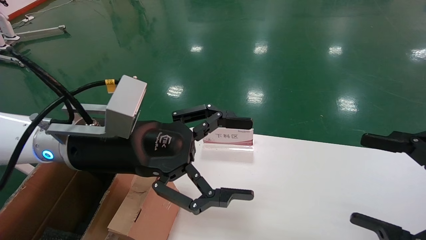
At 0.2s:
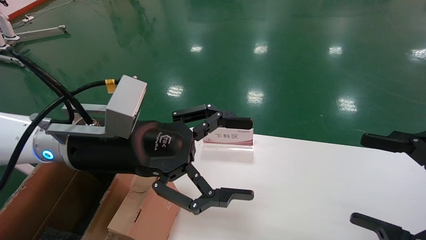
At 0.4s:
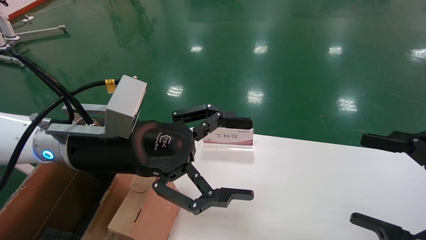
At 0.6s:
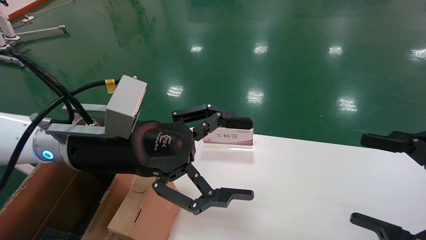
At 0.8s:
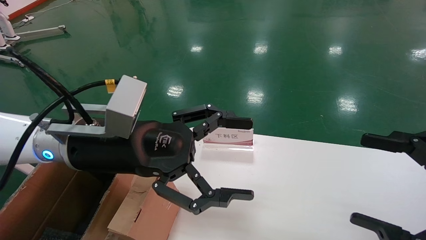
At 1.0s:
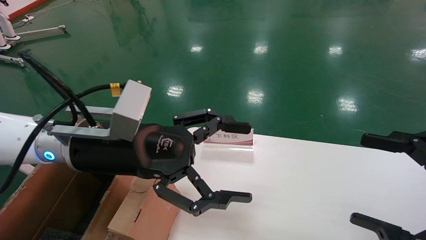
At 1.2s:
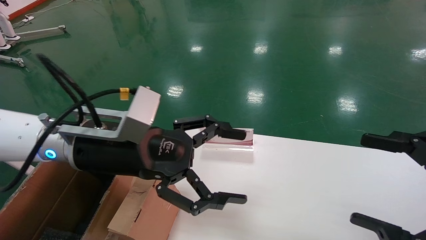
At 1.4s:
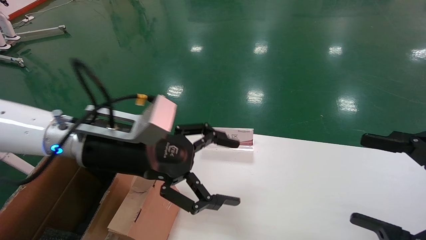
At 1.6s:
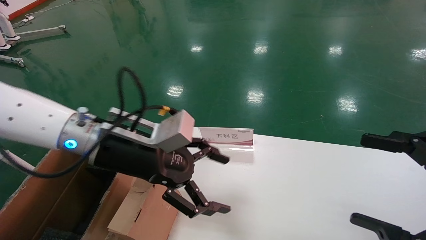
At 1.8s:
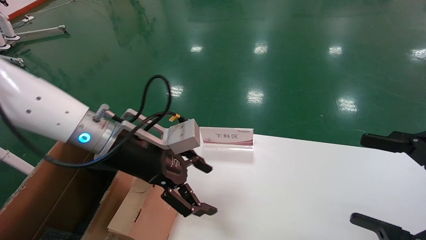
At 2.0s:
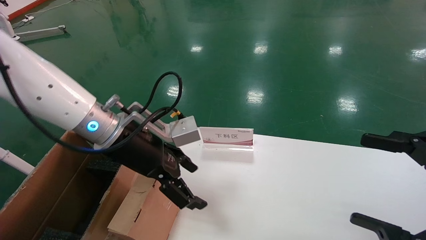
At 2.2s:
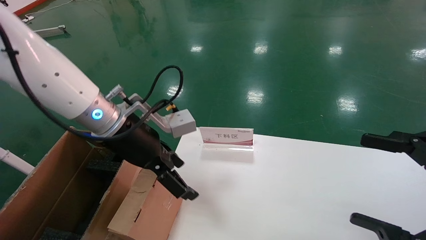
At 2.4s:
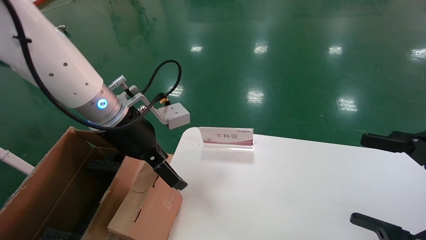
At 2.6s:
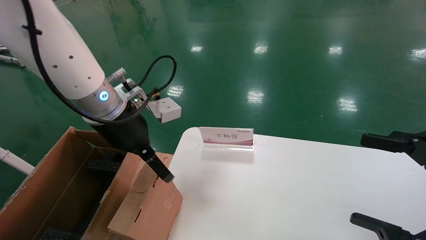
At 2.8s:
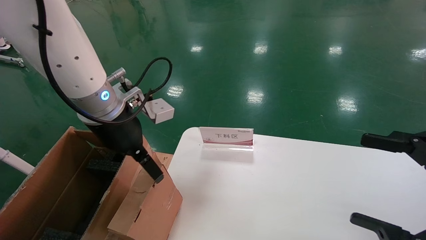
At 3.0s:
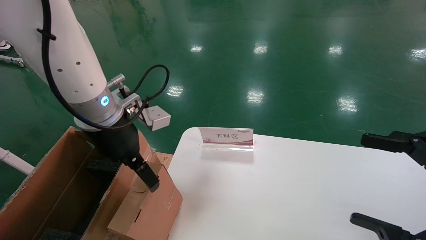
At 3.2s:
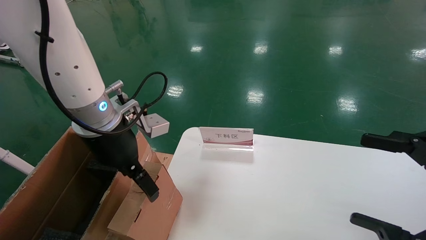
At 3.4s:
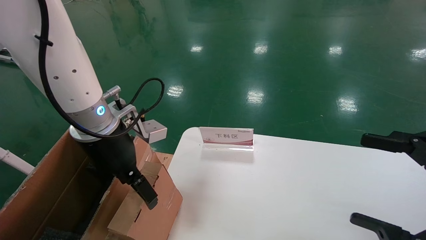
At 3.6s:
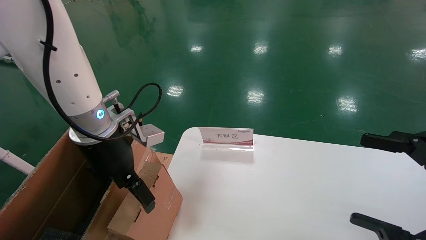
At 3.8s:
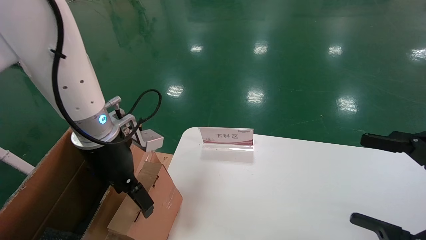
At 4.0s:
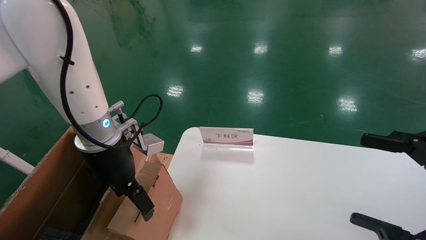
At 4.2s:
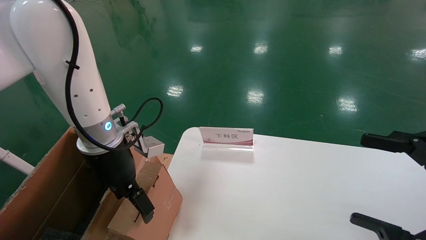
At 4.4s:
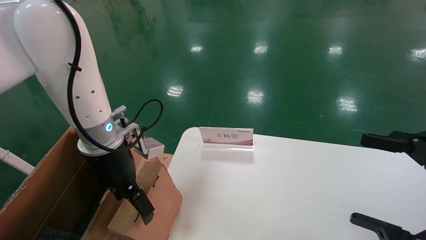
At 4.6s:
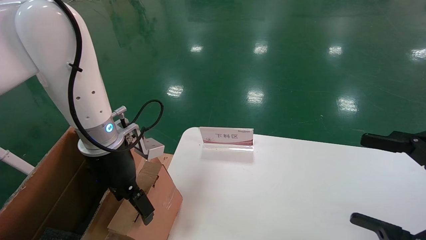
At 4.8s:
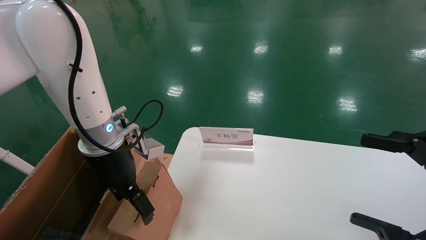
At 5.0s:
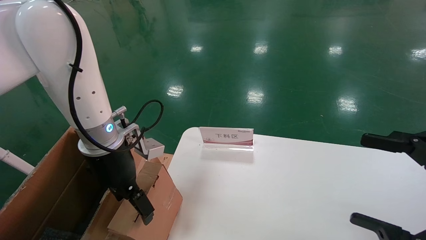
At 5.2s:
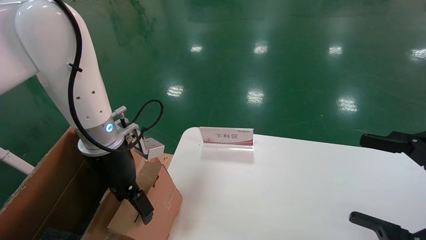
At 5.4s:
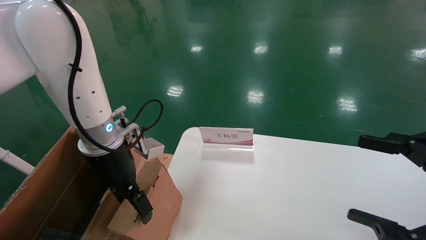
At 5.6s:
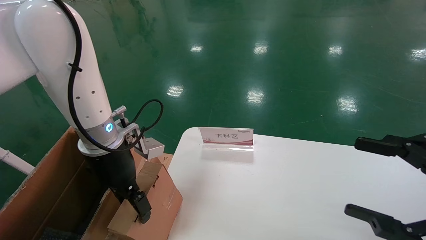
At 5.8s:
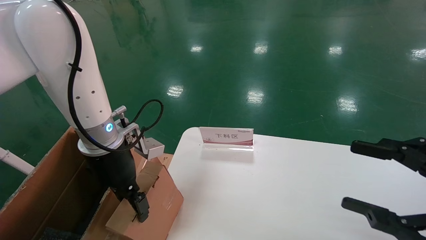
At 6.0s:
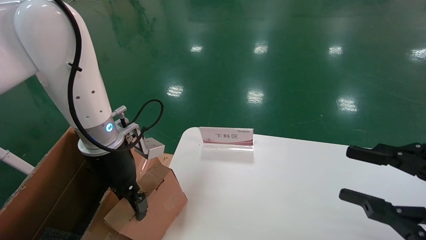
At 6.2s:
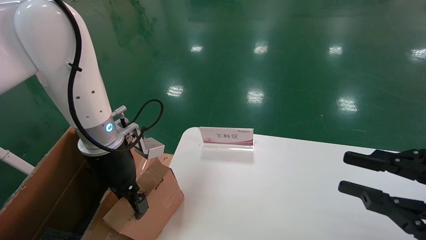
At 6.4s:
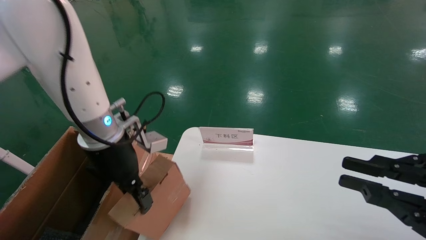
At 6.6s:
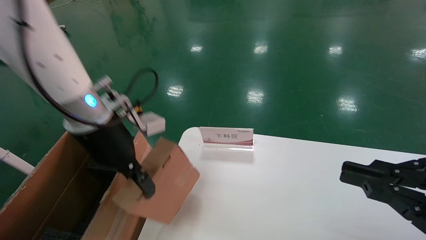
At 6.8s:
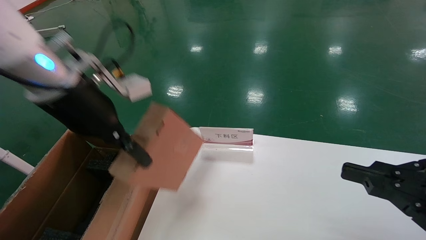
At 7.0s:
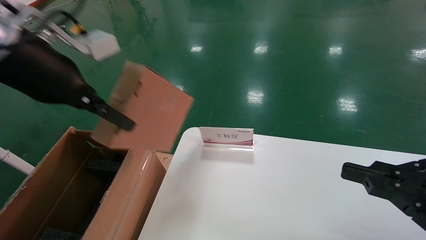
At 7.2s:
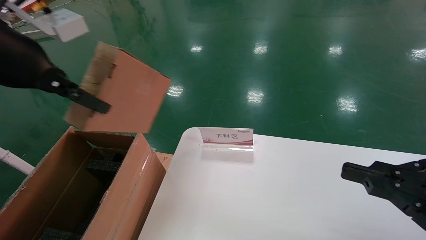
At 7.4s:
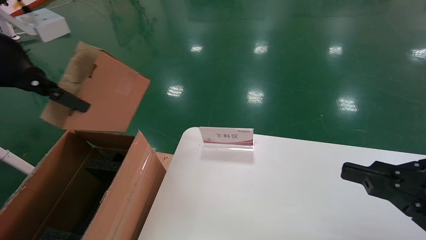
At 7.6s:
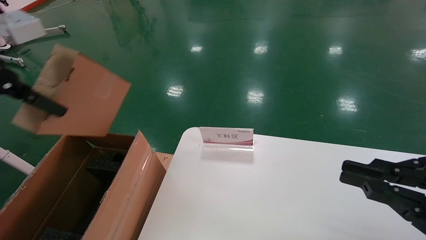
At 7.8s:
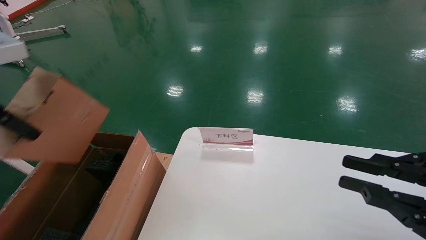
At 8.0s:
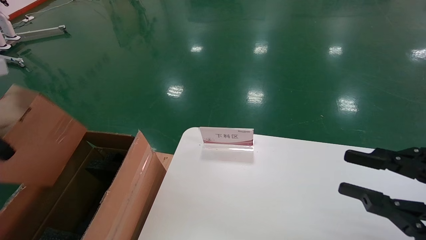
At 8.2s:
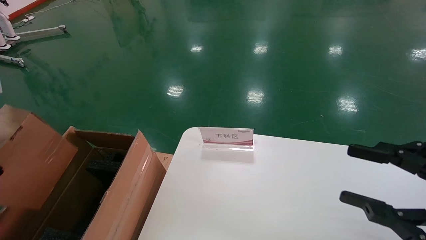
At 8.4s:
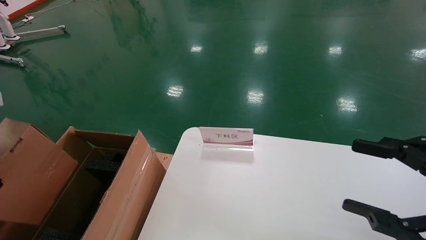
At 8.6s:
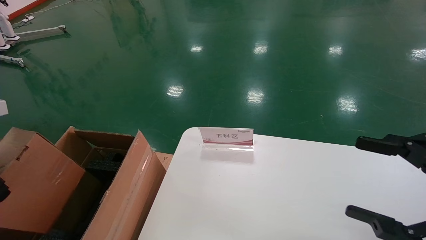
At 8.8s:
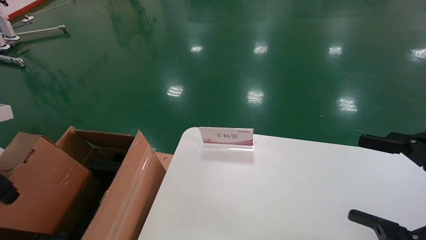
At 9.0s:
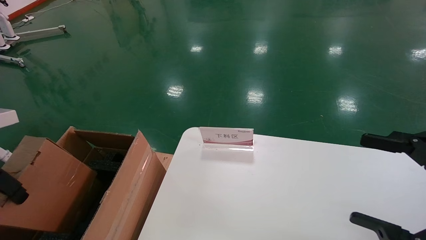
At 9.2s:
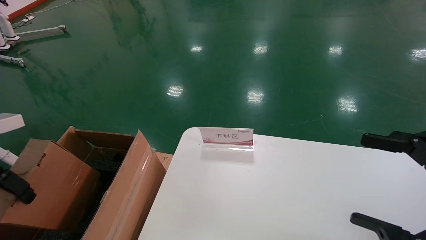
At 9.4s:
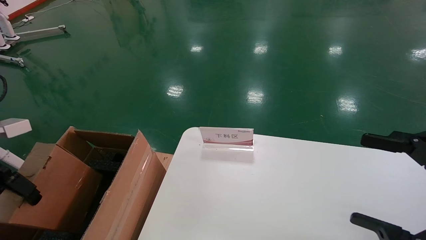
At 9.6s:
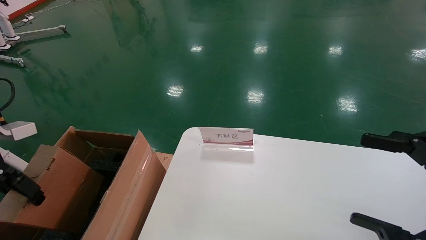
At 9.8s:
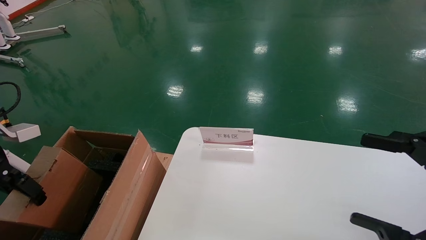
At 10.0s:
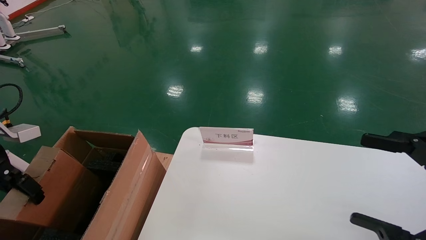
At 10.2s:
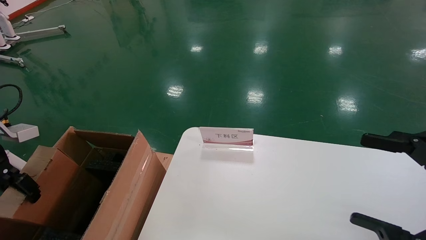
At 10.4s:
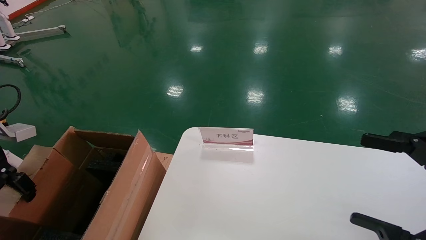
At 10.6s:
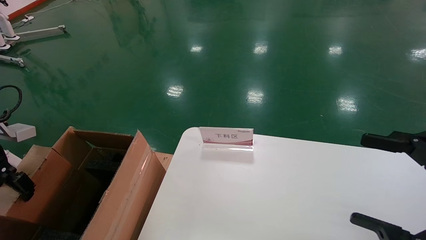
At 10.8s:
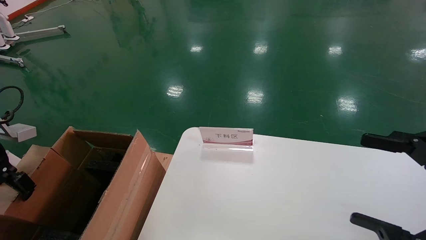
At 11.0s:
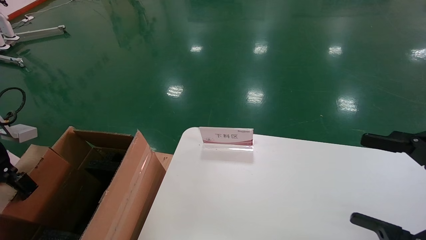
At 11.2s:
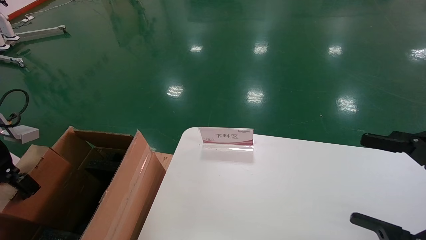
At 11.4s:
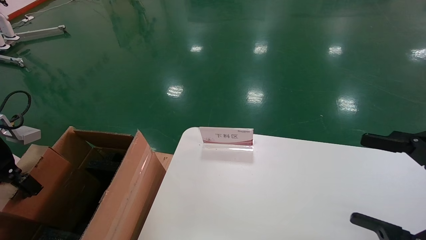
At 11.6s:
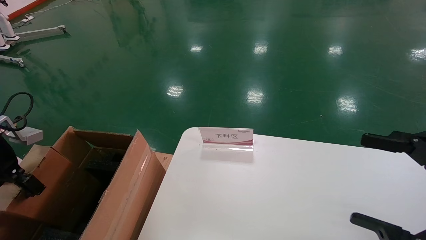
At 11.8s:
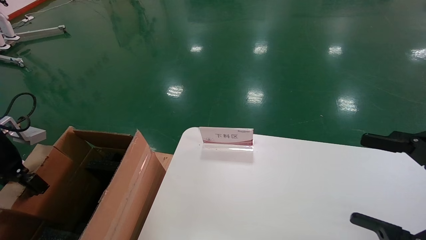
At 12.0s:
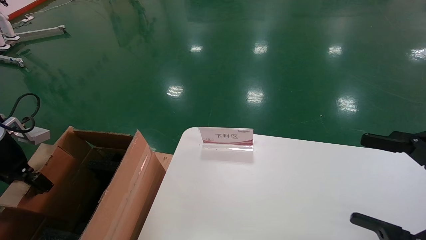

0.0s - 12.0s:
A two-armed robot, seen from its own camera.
Task of the whole recording: pick up the small cardboard box and load it into the large cardboard box.
Step, 1.4s - 6.0s: Pick up the mouse and power cord box.
3.0s - 4.4s: The left gripper travels downward by some 5 cm.
4.4s - 6.0s: The left gripper closes.
6.0s - 7.6s: The left gripper goes roughly 25 cm upward, to the left and backward, and closes its fingers. The right gripper closes.
7.6s - 9.0s: The right gripper opens its fingers, while the left gripper heads downward and to the left, covering roughly 15 cm.
9.0s - 10.4s: The left gripper heads downward, forward and to the left, covering roughly 10 cm.
10.4s - 12.0s: The left gripper changes place by roughly 5 cm.

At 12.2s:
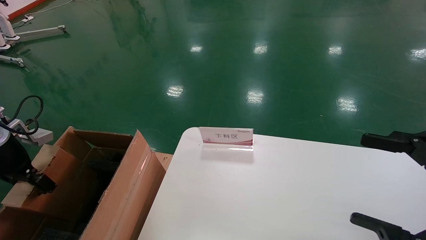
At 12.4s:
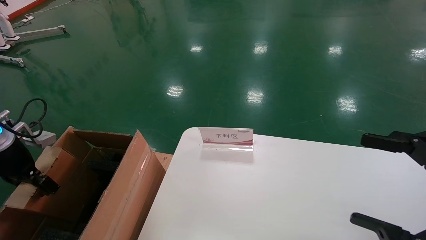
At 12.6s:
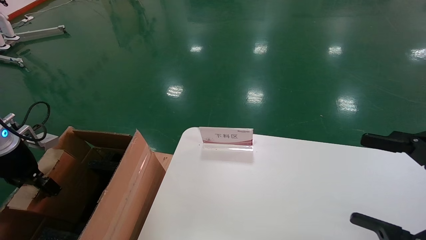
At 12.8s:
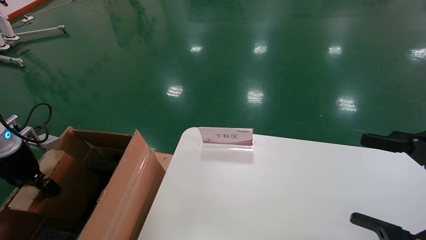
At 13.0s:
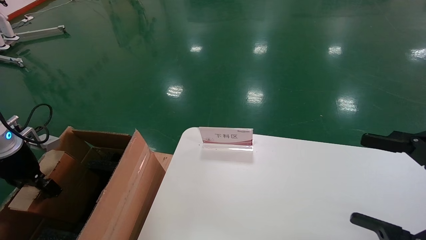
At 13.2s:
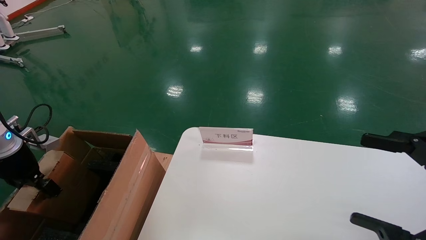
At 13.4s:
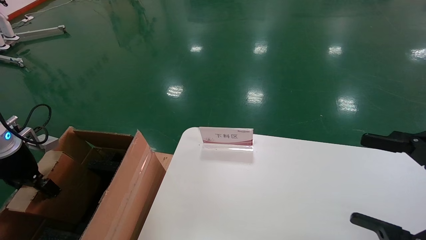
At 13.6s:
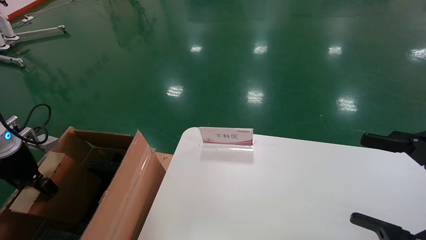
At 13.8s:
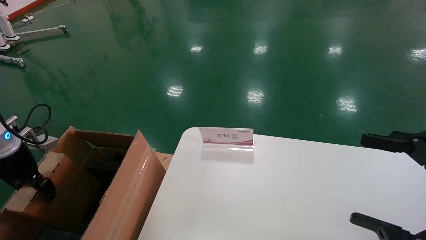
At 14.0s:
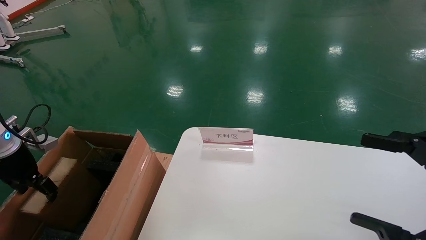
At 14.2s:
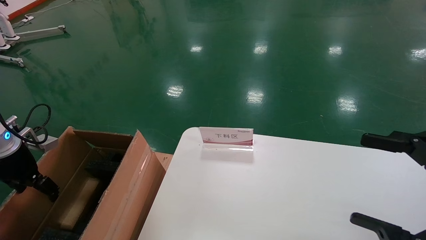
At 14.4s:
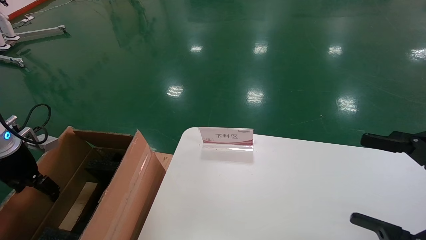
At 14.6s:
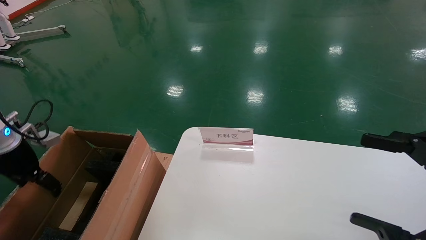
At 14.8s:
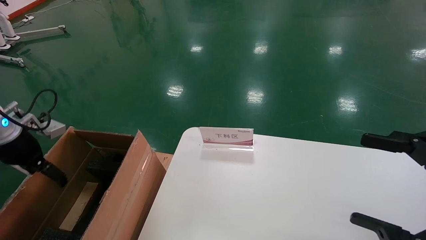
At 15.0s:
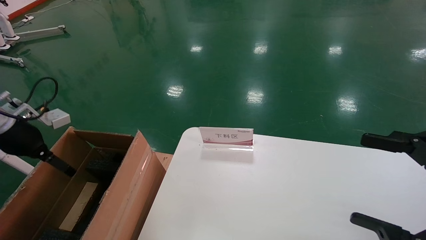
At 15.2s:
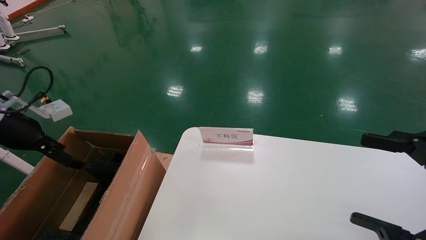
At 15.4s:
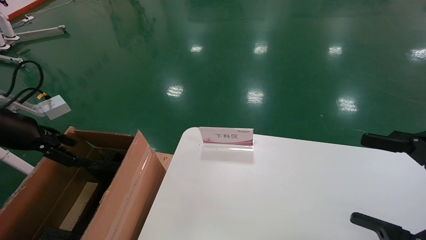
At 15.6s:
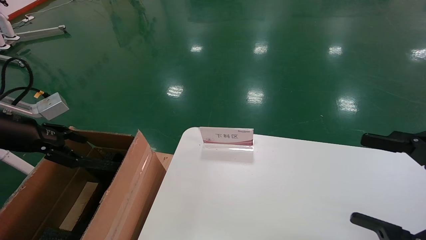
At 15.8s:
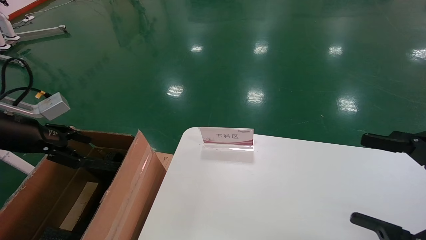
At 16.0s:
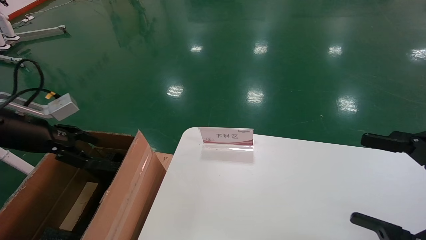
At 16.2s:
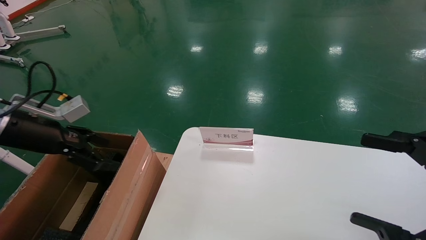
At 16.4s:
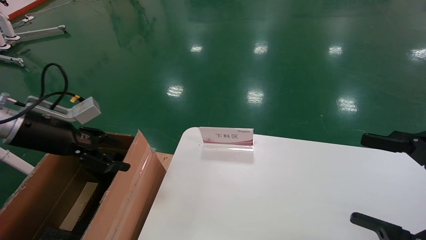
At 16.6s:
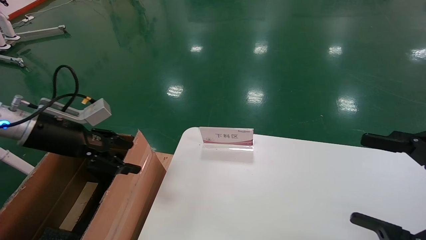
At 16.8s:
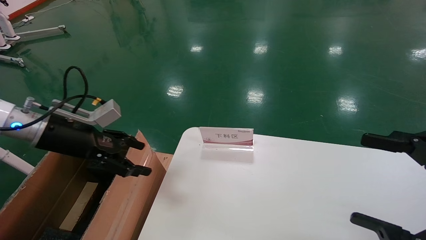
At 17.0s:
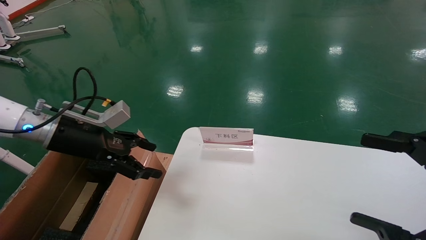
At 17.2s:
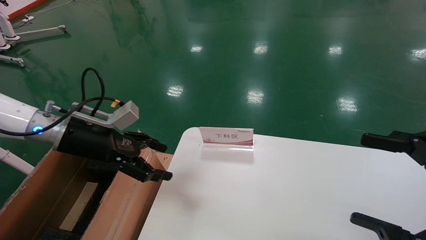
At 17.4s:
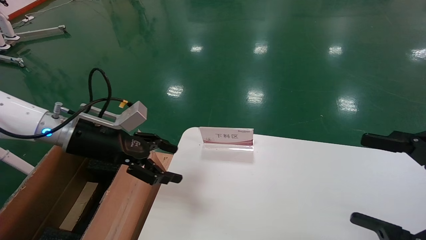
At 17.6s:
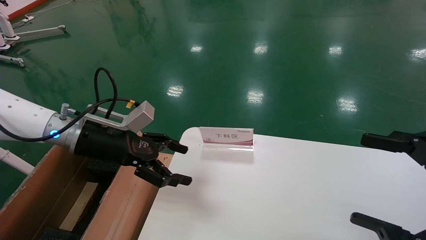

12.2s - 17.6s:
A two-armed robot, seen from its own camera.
Task of the whole recording: pick up the small cardboard box and load it into the large cardboard box.
Step, 12.2s - 14.6s: Place the mouse and power cord box into the case.
12.2s - 13.6s: The grippers stay close to where they were, moving slightly.
13.6s - 15.0s: The left gripper goes some 5 cm upward, and opens up.
15.0s - 16.2s: The left gripper moves to the right, some 5 cm.
16.2s - 17.6s: The left gripper heads to the right, covering approximately 15 cm.
